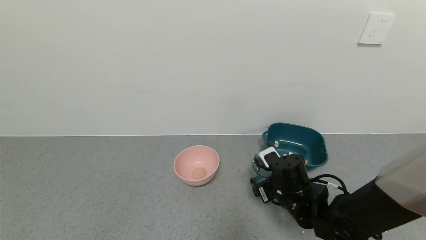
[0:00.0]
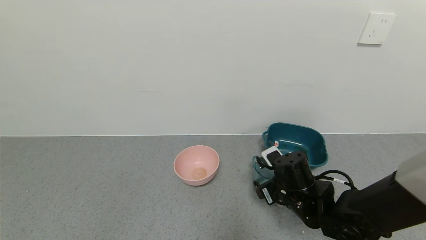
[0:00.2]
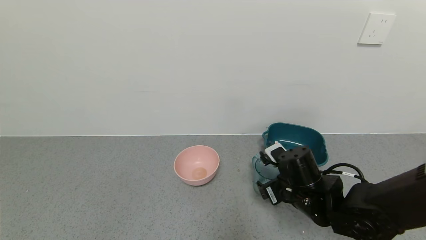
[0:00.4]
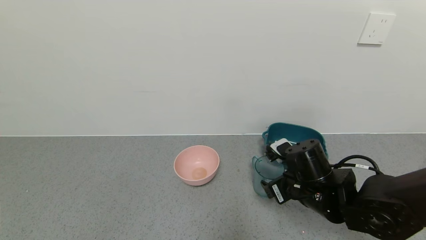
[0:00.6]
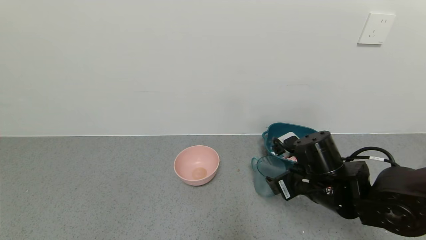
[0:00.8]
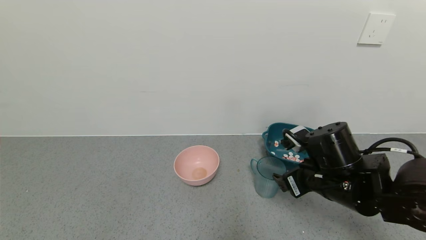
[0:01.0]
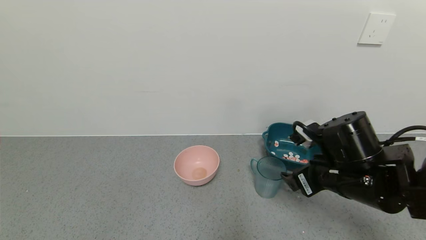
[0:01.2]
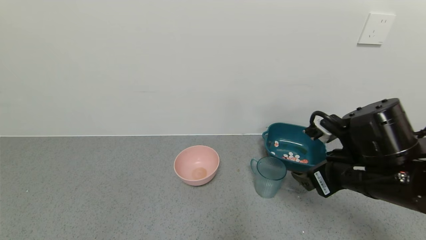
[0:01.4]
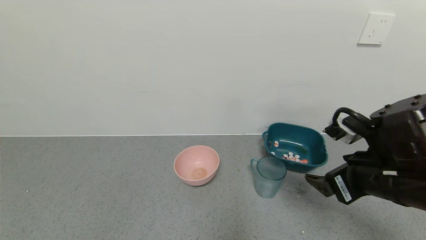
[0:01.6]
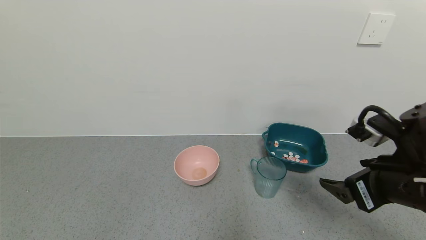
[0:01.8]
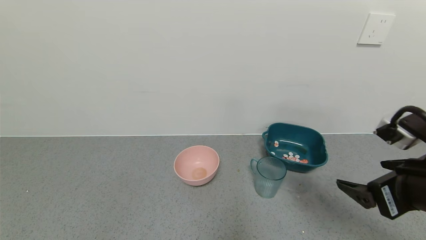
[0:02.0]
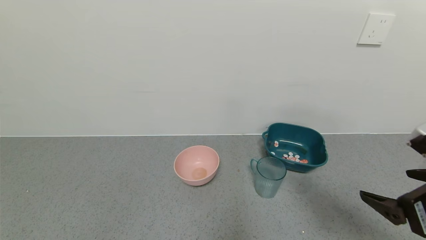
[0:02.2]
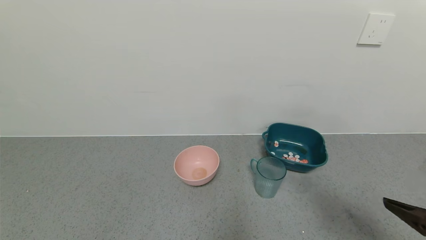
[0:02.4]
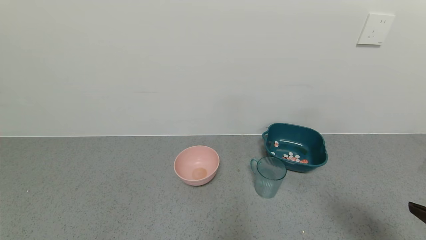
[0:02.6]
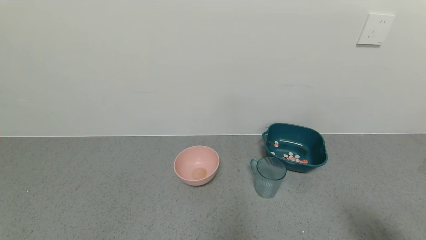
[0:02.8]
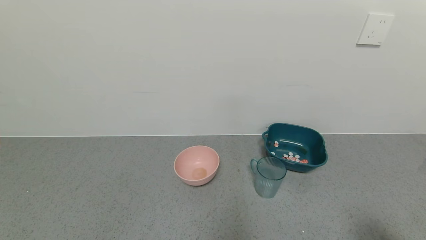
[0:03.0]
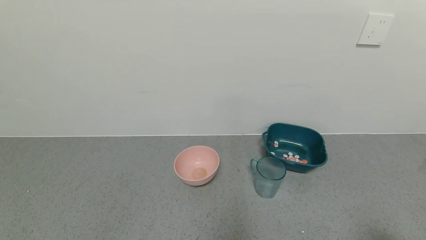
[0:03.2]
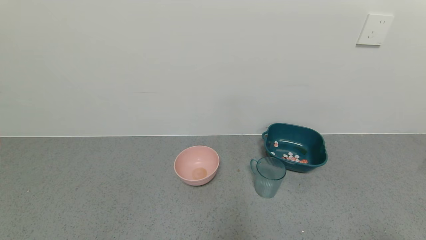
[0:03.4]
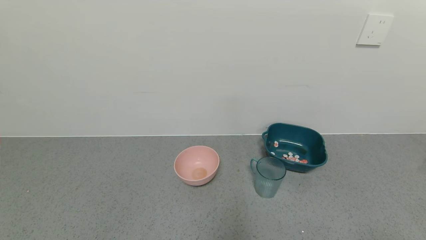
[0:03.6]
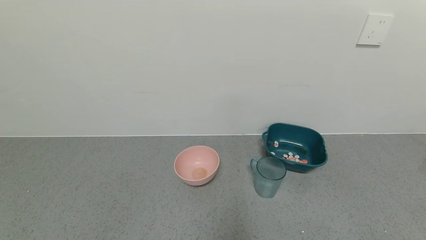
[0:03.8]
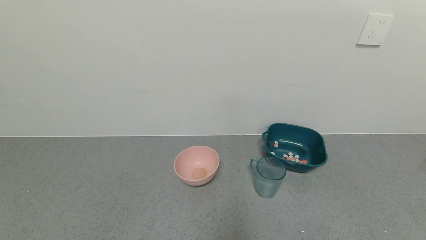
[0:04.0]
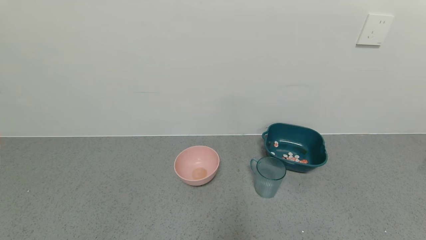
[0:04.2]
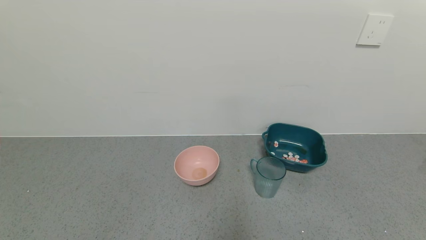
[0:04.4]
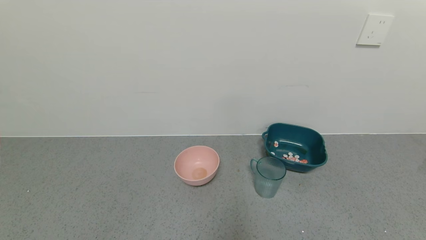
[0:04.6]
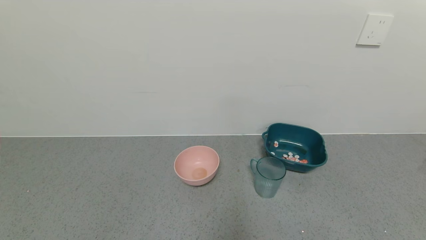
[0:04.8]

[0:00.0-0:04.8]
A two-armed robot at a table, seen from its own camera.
Task of the whole recording: use a gripper to pick up the cup and pour the solid into a bowl or tray.
0:00.0 to 0:01.6: The right gripper moves upward, backward and to the right, some 20 cm.
0:01.6 to 0:03.2: The right gripper moves backward and to the right, roughly 20 cm.

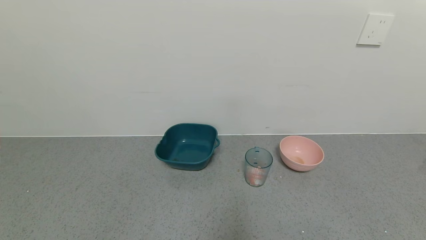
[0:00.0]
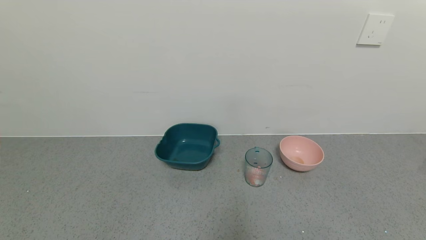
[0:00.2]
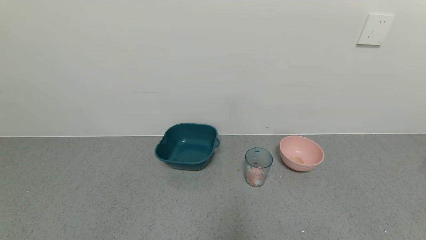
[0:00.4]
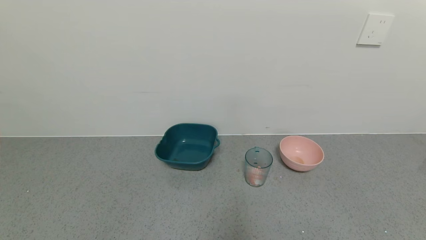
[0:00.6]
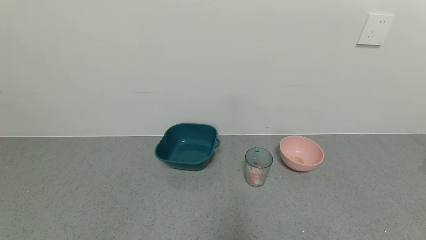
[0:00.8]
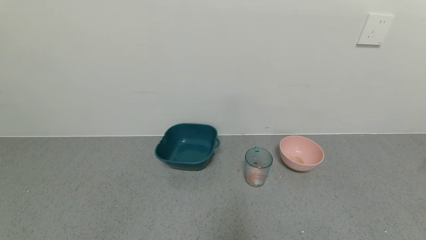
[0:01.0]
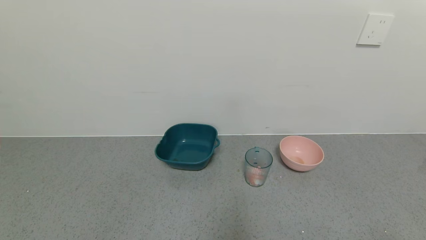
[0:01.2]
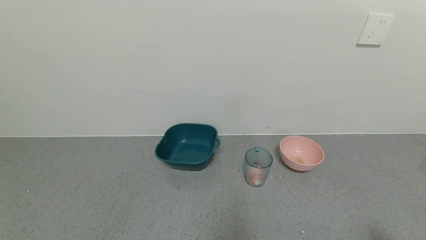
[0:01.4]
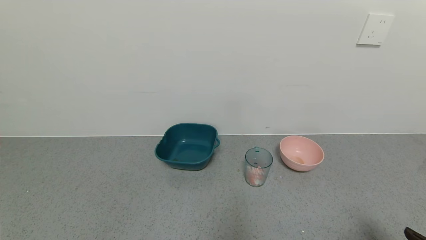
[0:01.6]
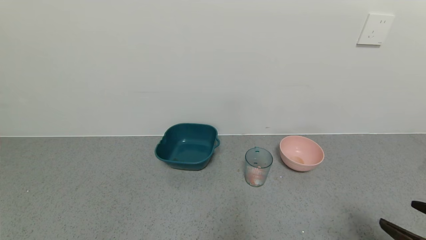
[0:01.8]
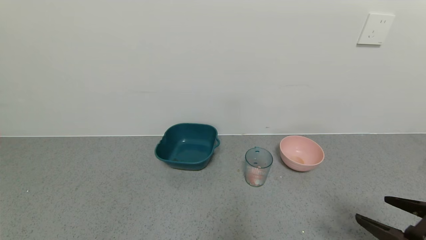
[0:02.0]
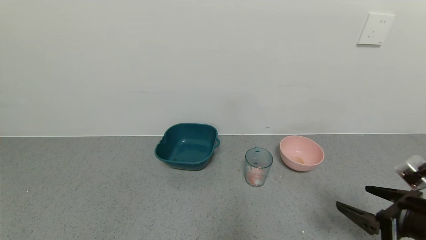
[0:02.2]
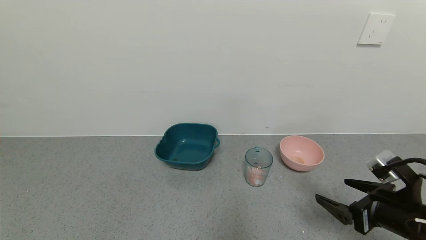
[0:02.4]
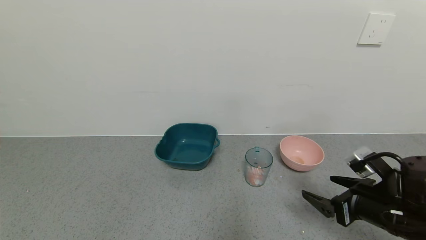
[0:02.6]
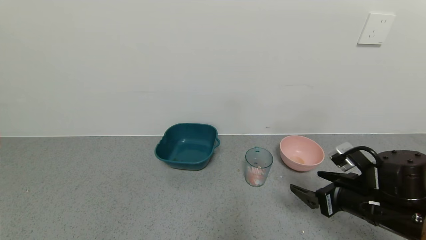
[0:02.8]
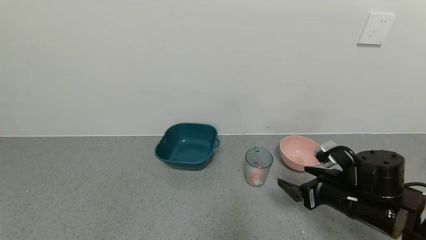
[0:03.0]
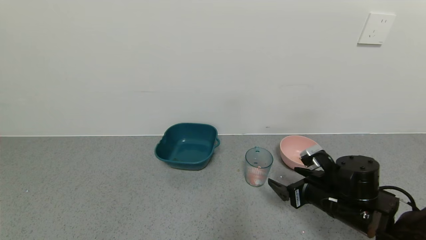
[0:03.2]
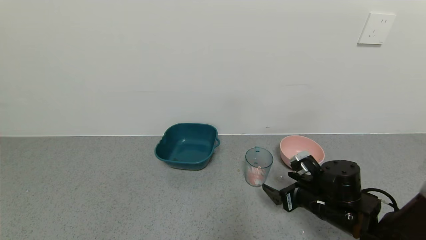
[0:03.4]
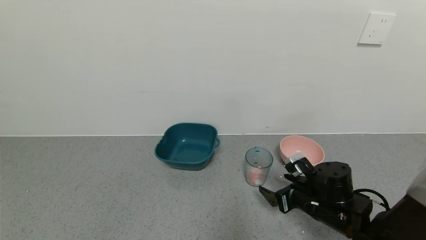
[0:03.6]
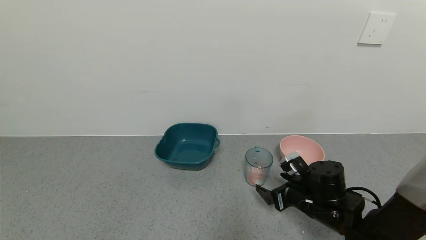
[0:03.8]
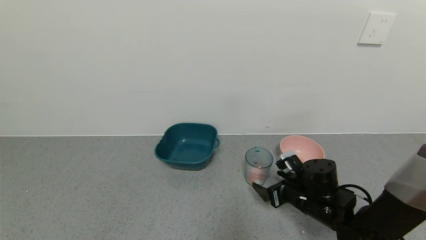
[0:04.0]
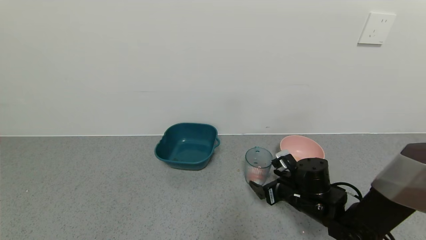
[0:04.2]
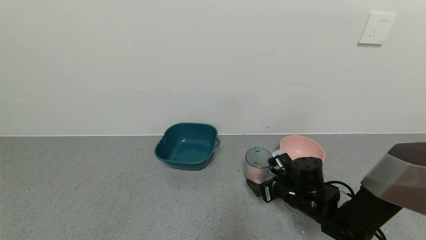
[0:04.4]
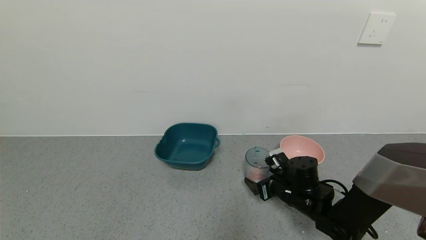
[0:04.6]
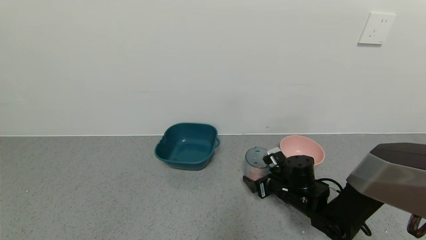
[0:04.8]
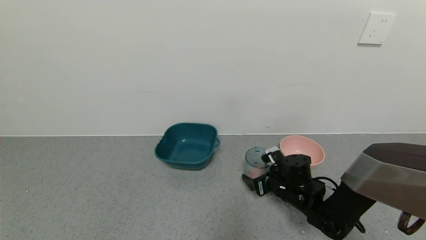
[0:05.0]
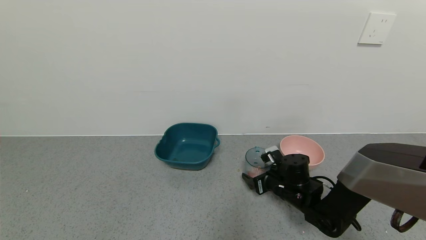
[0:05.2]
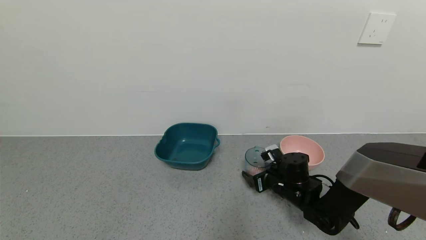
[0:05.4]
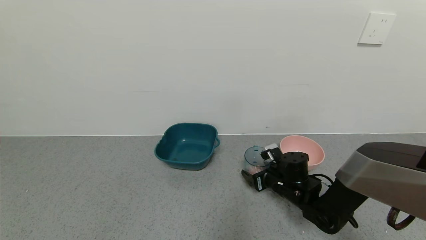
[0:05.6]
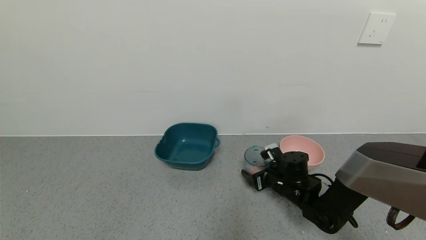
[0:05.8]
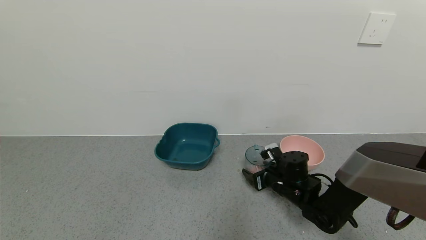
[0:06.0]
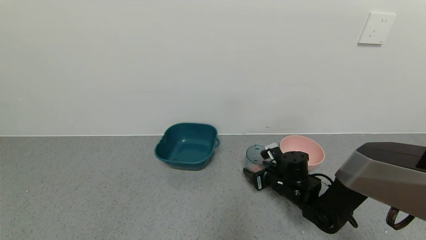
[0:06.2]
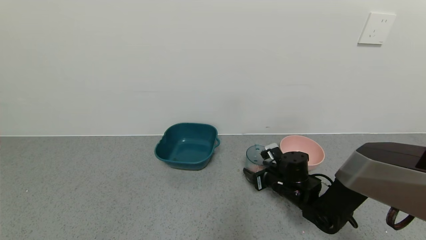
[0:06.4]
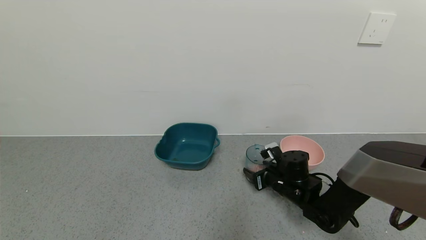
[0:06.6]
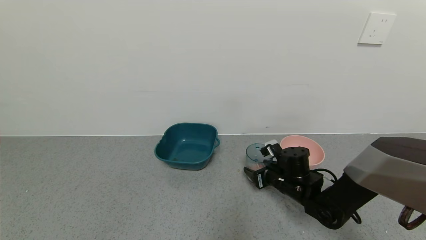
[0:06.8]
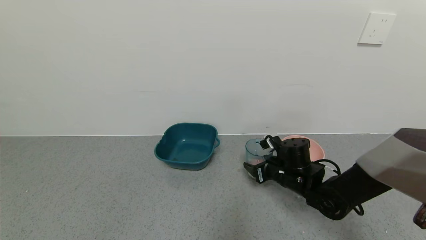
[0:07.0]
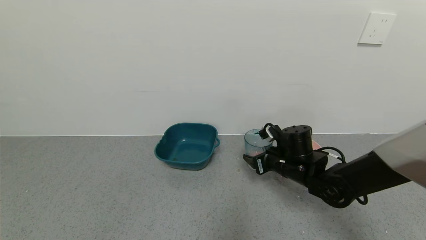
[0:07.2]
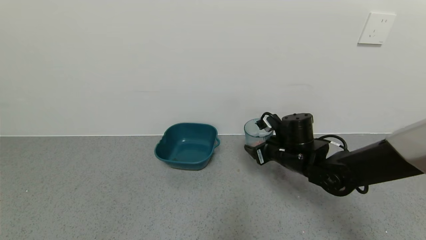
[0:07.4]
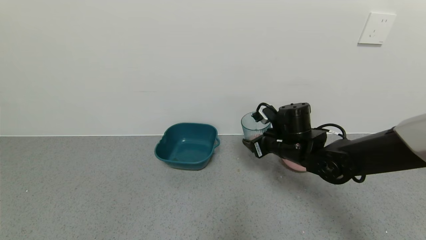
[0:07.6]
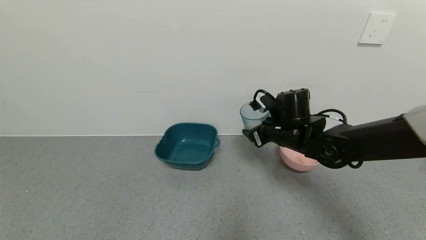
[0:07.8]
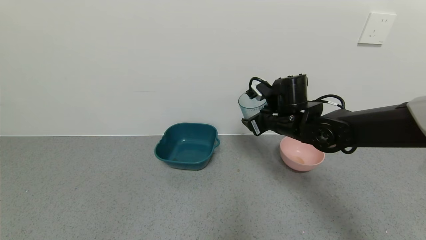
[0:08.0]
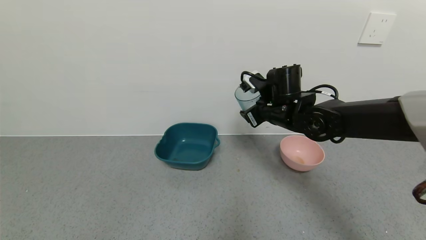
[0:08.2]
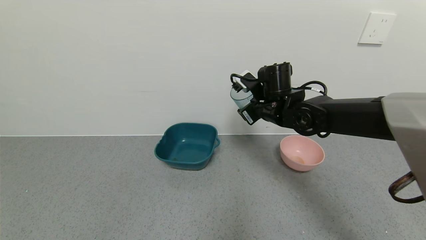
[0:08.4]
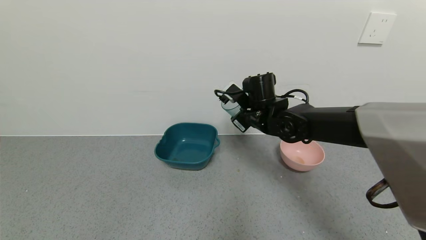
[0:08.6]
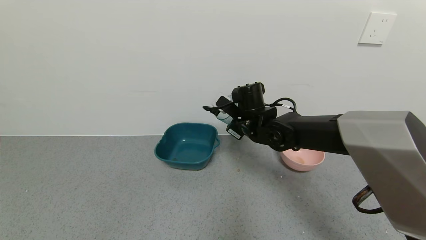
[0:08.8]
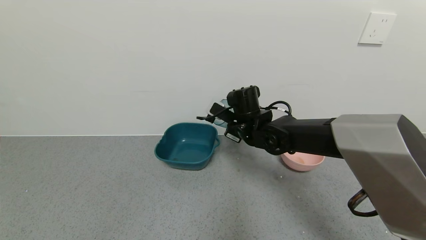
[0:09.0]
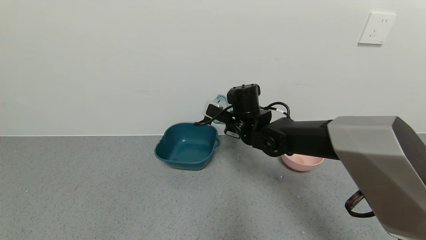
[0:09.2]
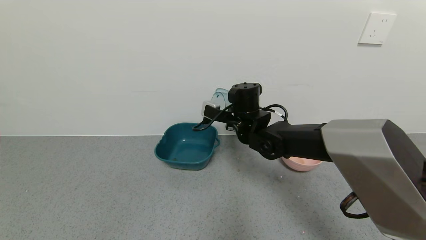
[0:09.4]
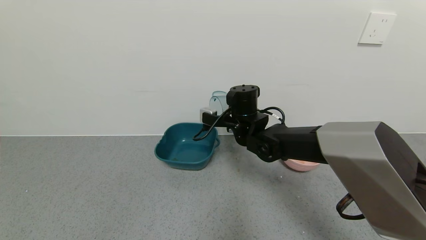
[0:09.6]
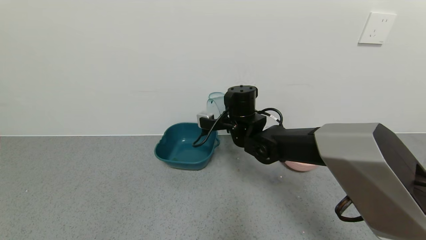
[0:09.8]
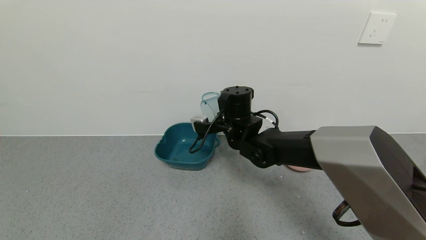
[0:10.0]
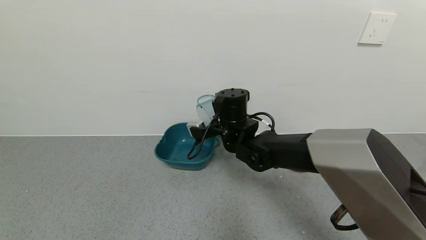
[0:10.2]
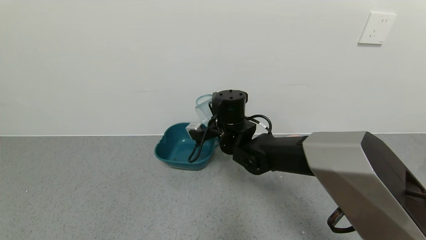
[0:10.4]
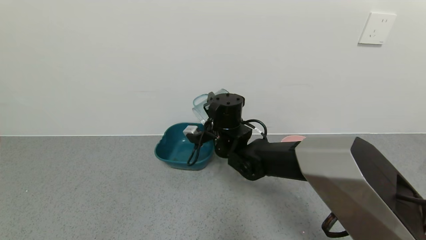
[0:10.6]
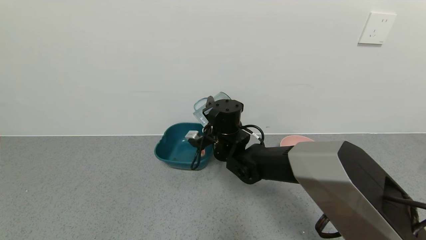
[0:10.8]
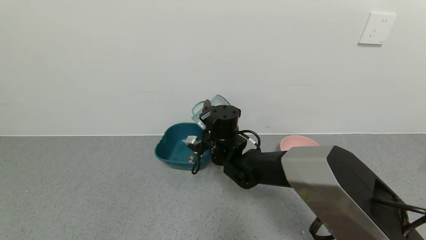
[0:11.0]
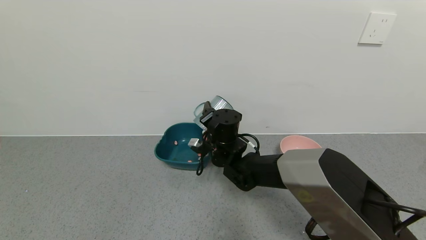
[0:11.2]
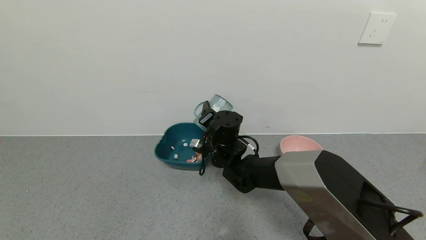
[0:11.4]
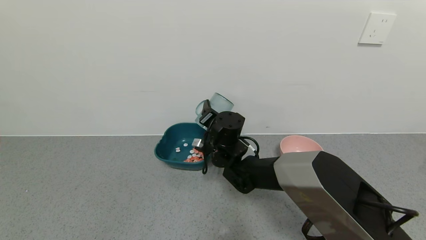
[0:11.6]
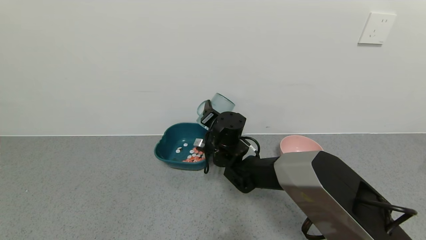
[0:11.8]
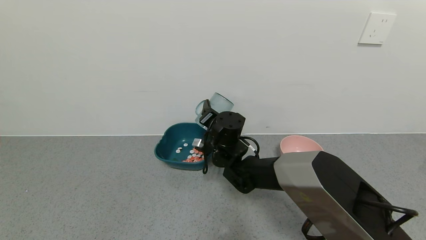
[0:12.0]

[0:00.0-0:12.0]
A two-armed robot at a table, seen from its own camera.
Task of the whole recording: use a gripper to pick up the cup and pour the solid into a bowl or tray.
Step, 0:00.0 to 0:06.6: Grasp the glass of shrimp with the right gripper.
0:00.0 to 0:01.6: The right gripper goes some 10 cm upward and forward.
0:01.6 to 0:03.0: The right gripper goes approximately 20 cm forward and to the left.
0:03.0 to 0:04.4: The right gripper goes some 10 cm downward, forward and to the left.
0:04.4 to 0:06.0: The right gripper closes.
0:06.0 to 0:07.6: The right gripper moves upward, roughly 10 cm, and closes.
0:07.6 to 0:09.0: The right gripper is displaced to the left by about 10 cm.
0:09.0 to 0:10.4: The right gripper shifts by roughly 5 cm.
